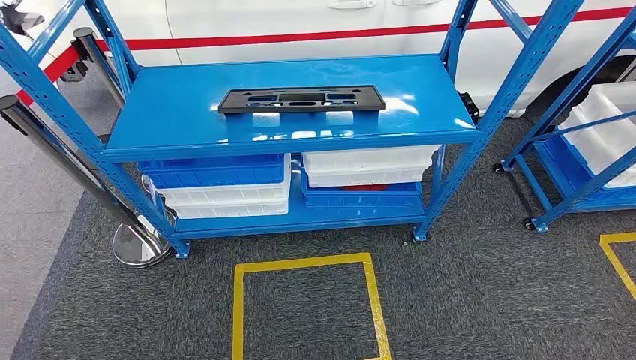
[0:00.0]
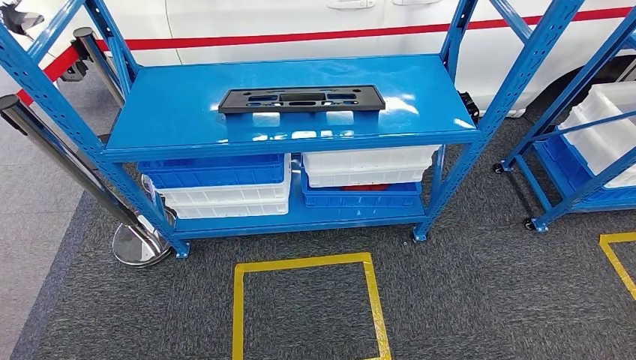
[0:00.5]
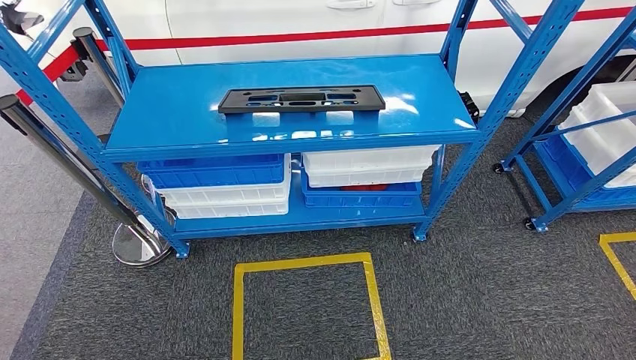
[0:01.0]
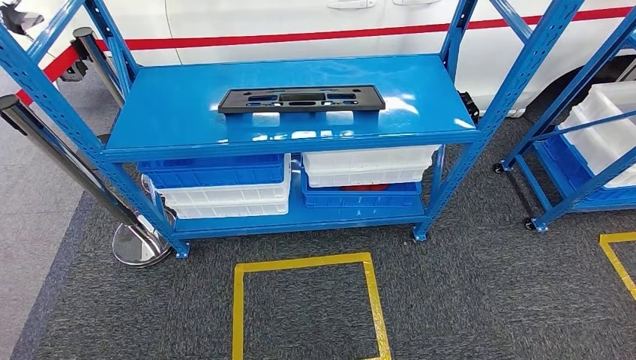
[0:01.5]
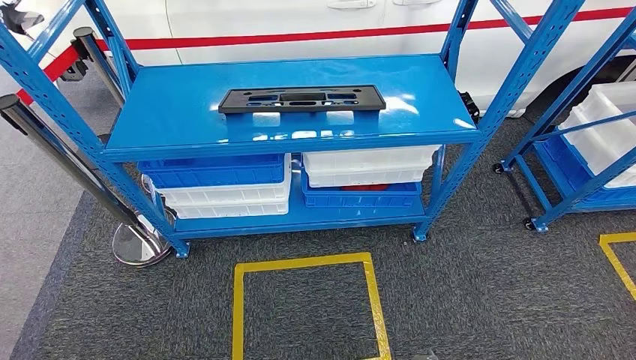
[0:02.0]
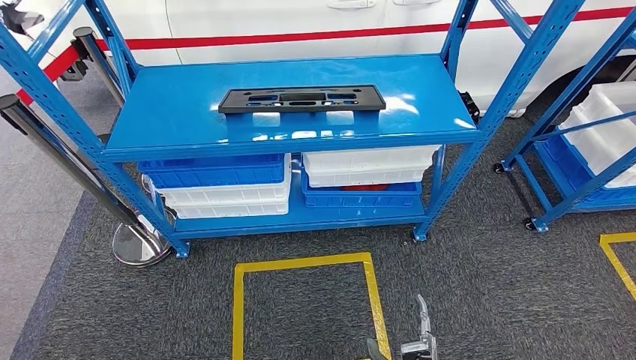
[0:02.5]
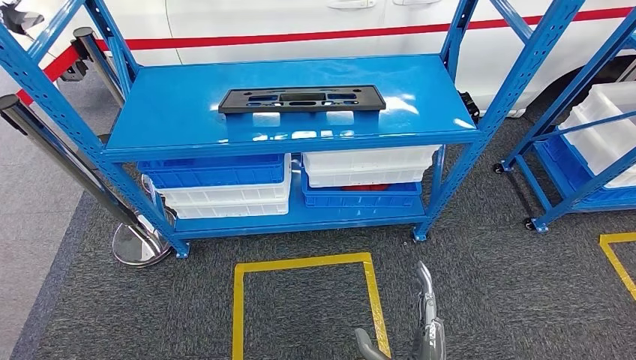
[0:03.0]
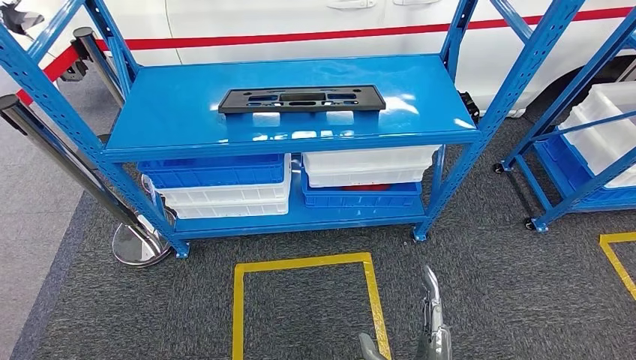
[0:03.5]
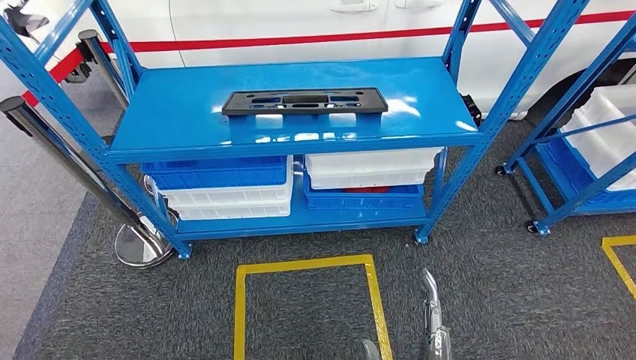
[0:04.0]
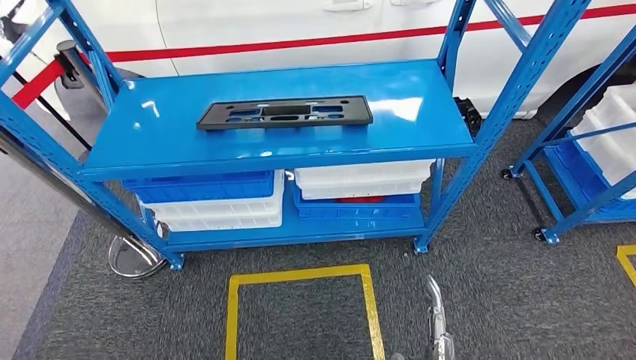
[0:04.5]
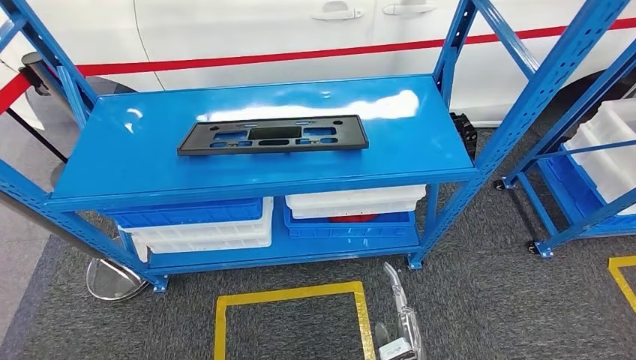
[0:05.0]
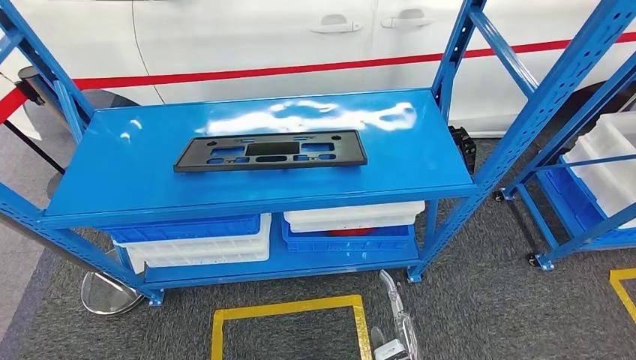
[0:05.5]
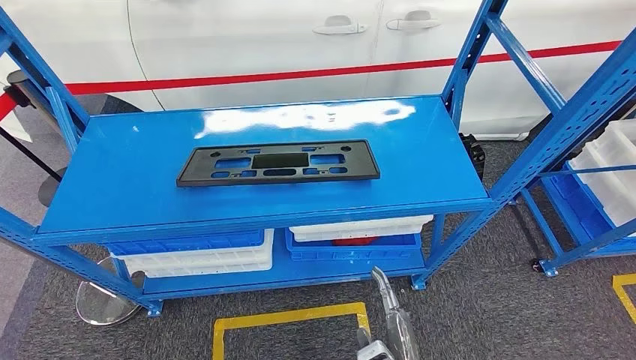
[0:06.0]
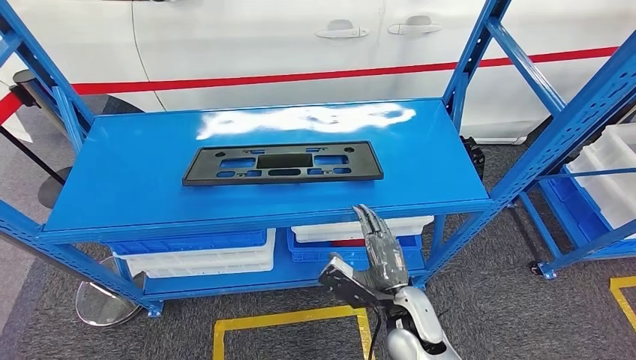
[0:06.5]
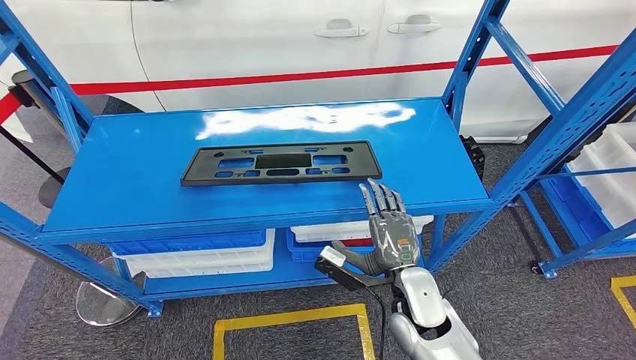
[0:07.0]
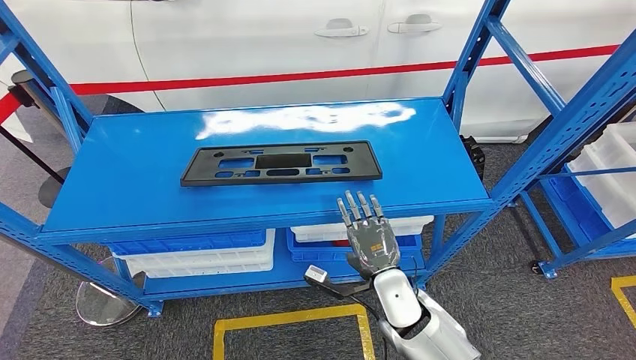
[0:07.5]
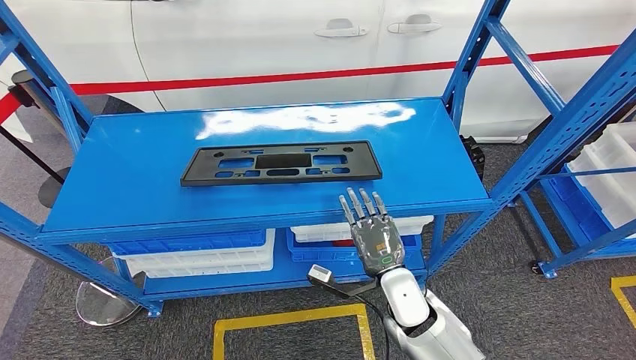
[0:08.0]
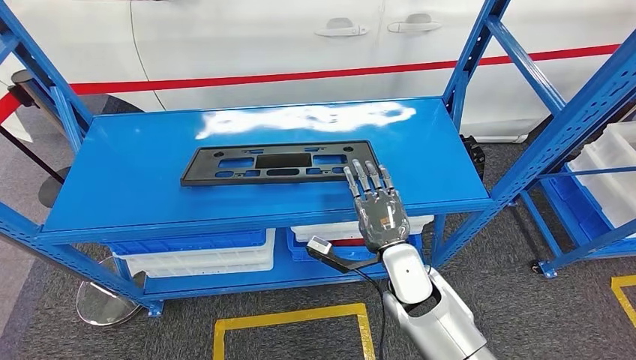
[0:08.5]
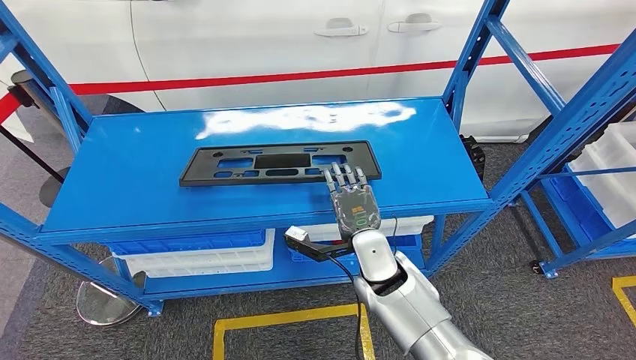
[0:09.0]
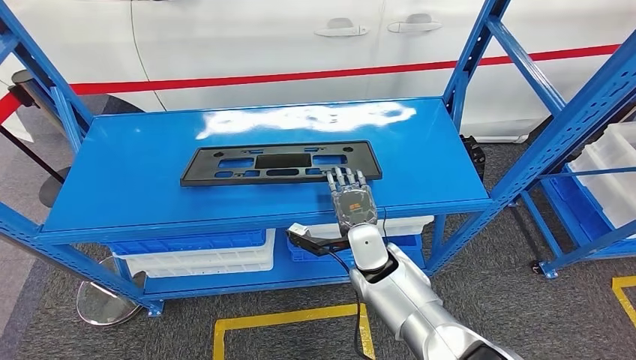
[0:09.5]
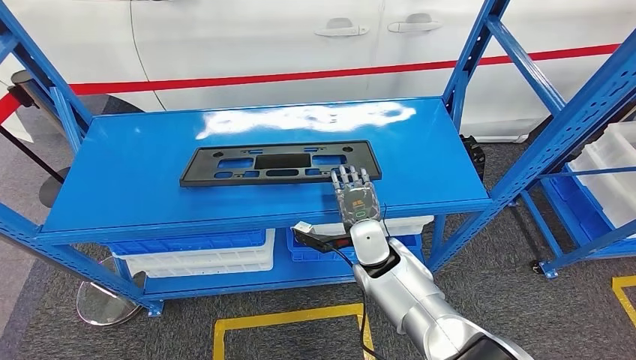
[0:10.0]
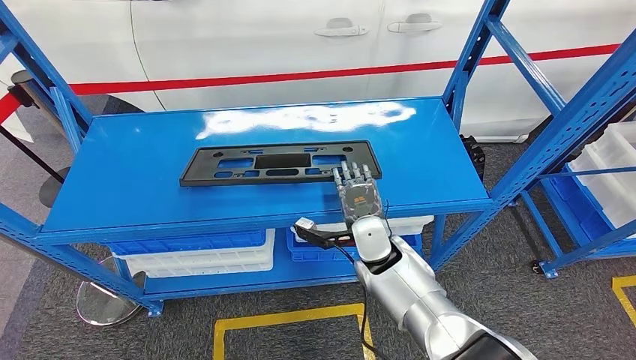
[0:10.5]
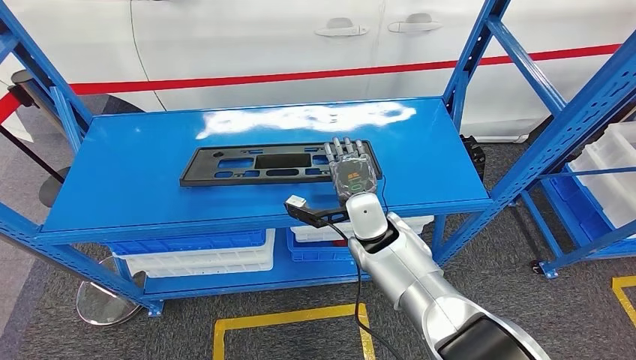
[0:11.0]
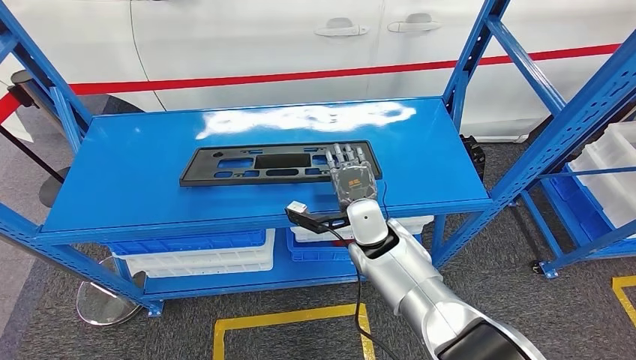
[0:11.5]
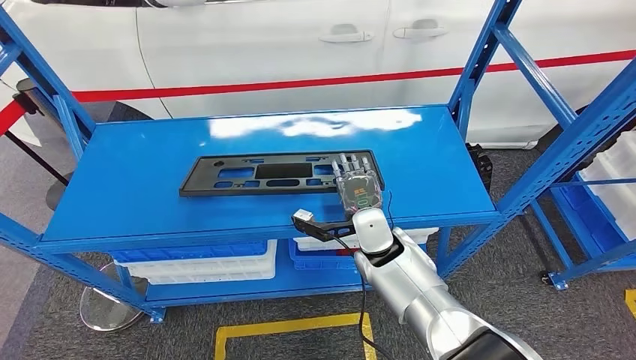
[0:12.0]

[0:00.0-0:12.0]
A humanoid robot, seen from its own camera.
0:02.0 to 0:04.0: The right hand shifts about 20 cm upward.
0:06.0 to 0:08.0: The right hand moves forward, roughly 15 cm.
0:08.0 to 0:10.0: The left hand travels to the right by approximately 15 cm. Meanwhile the right hand goes approximately 10 cm forward and to the left.

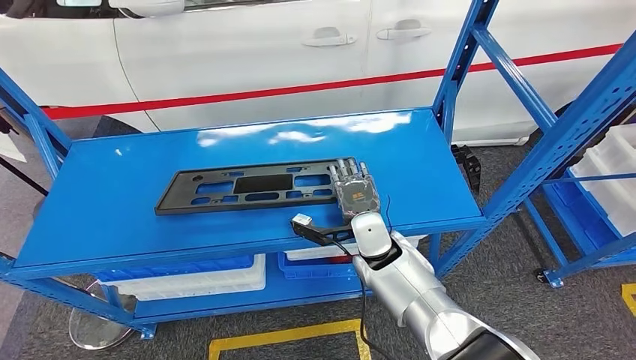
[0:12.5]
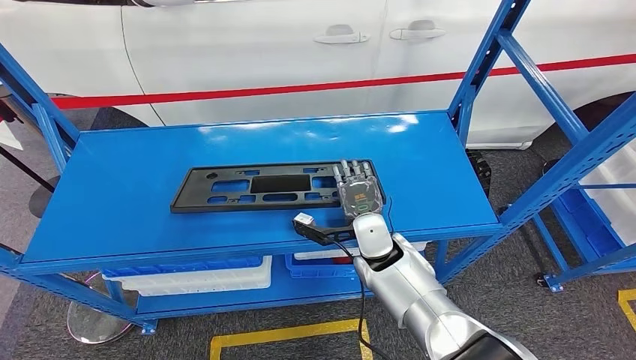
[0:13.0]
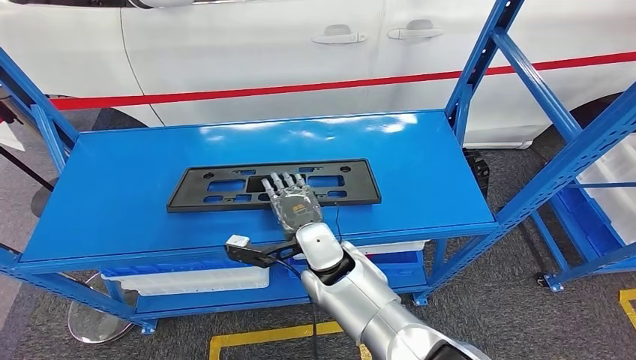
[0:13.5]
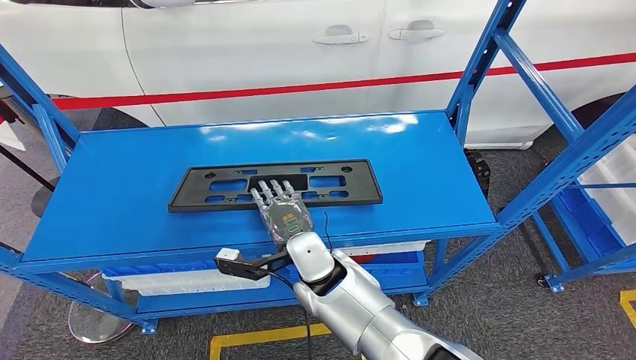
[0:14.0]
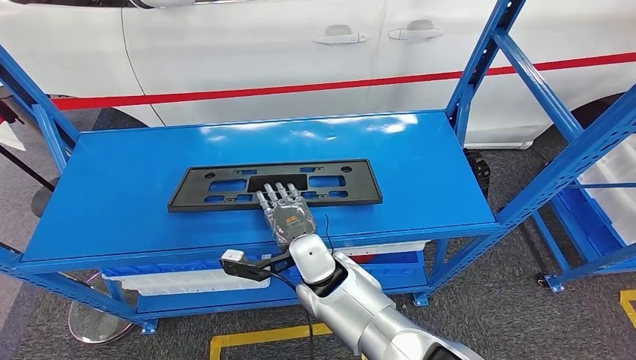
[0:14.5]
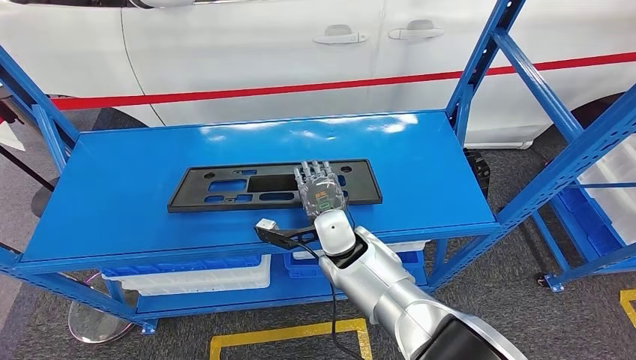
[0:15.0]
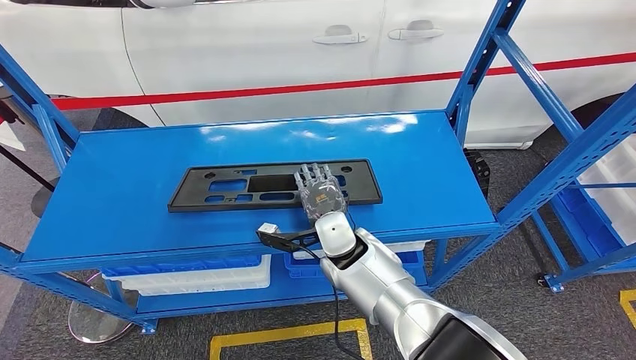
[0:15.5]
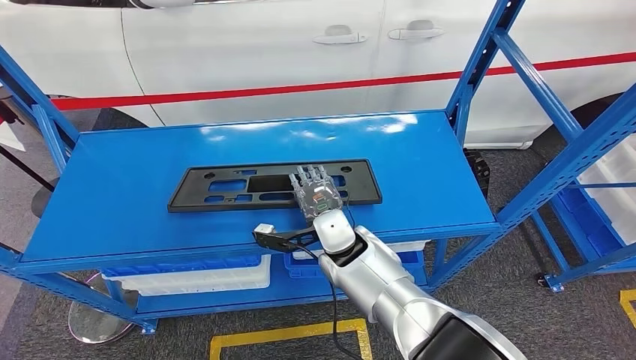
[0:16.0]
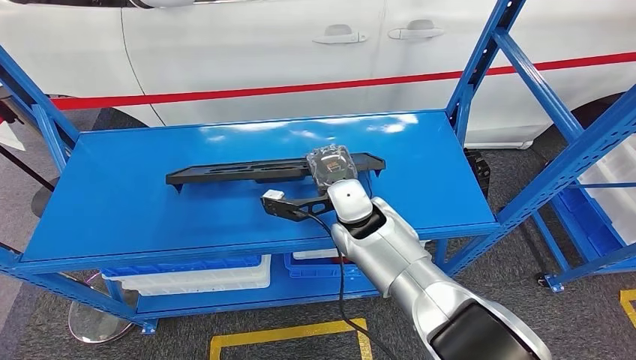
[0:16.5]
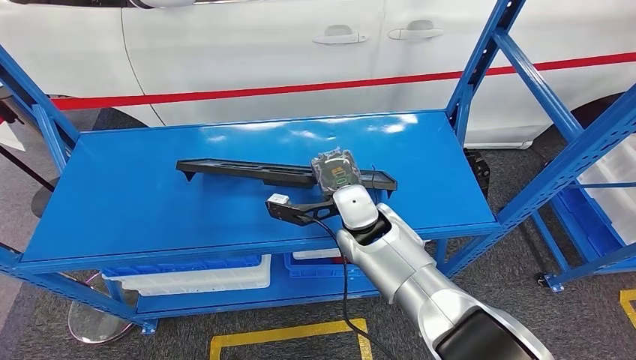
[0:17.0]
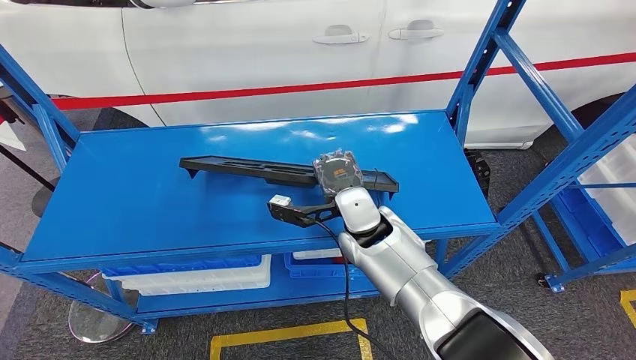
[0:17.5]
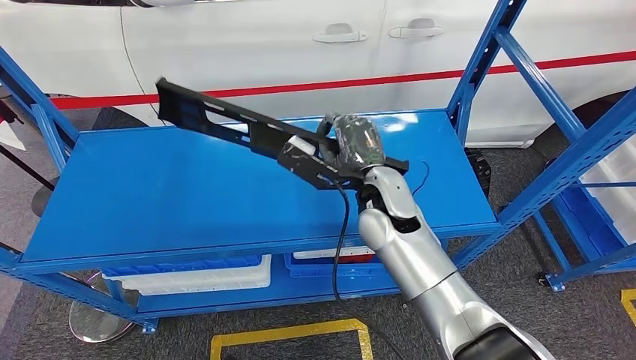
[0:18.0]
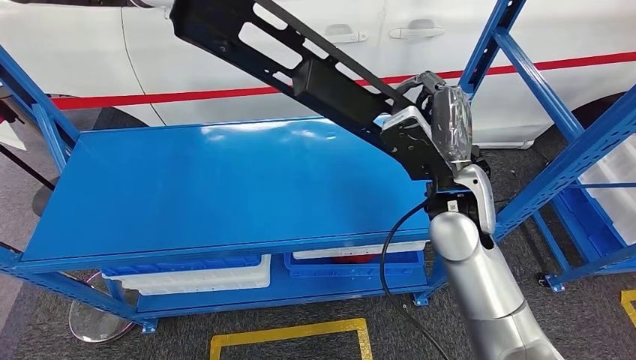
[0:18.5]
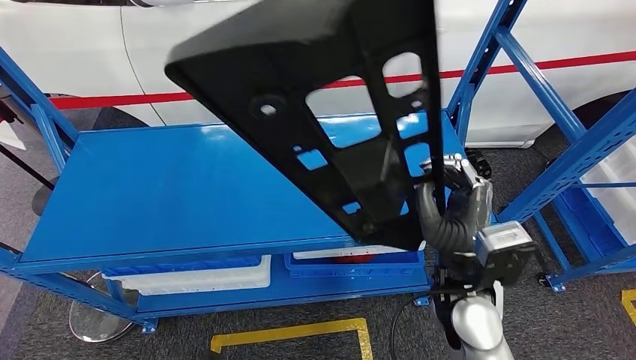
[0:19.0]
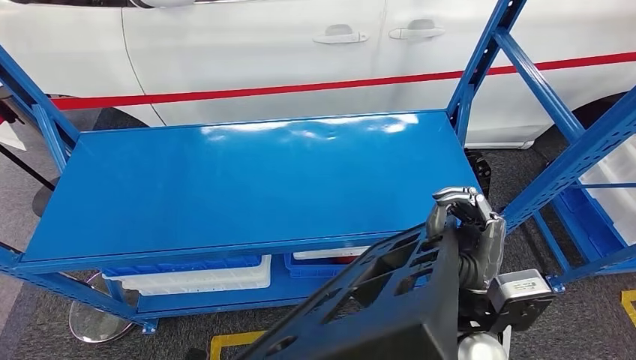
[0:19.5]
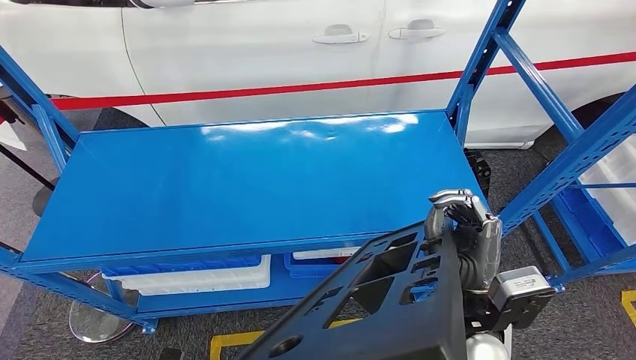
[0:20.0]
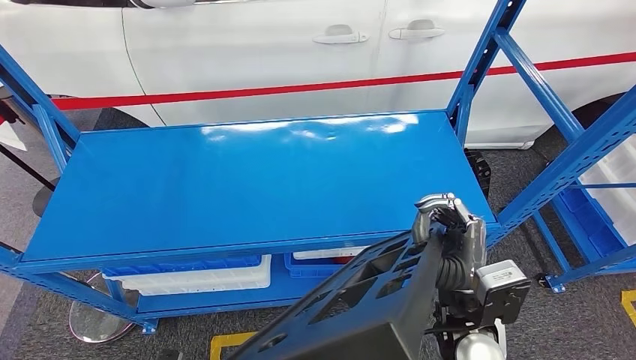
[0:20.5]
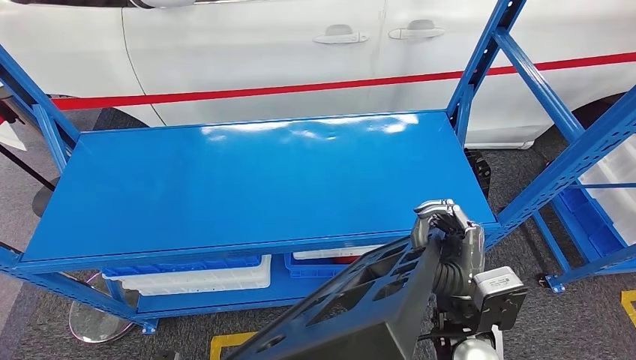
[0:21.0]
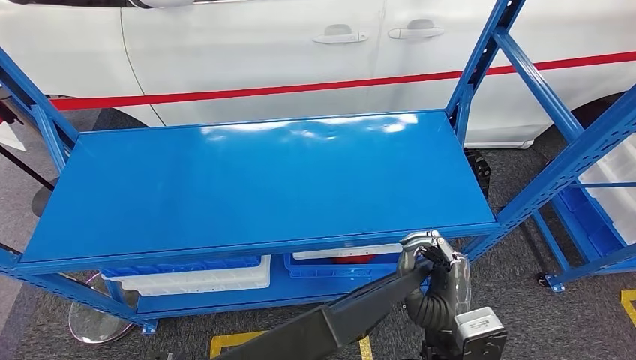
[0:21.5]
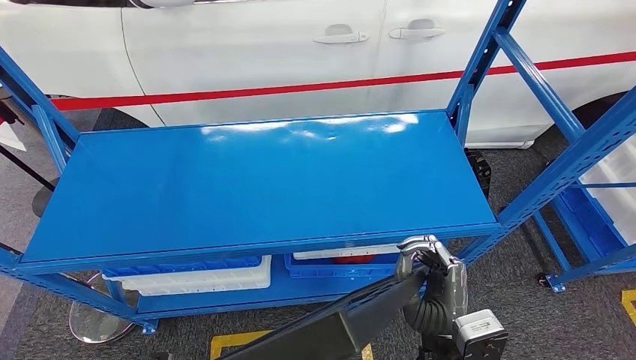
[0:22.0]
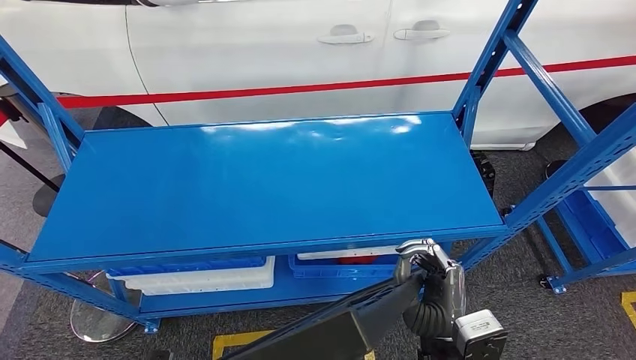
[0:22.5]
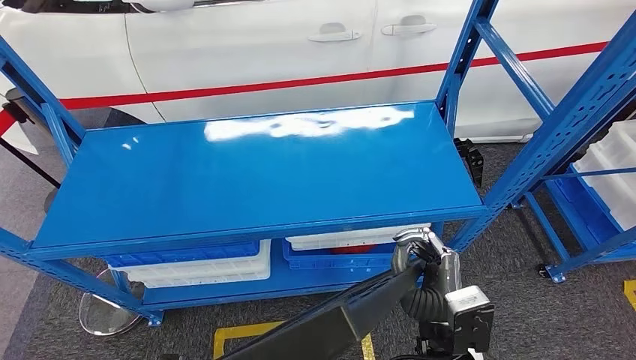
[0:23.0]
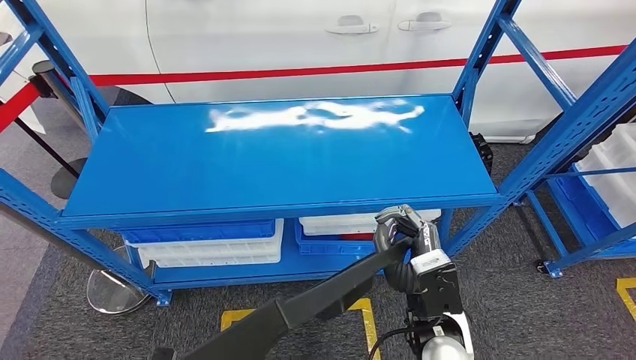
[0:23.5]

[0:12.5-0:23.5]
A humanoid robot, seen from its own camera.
Step, 0:12.5 to 0:19.0: Pick up the large material from the shelf.
0:14.5 to 0:16.0: The right hand ends up roughly 5 cm from where it was.
0:16.0 to 0:18.0: The right hand travels upward and to the right by roughly 10 cm.
0:18.0 to 0:20.0: The right hand moves backward and to the right, approximately 20 cm.
0:20.0 to 0:21.5: The right hand ends up some 5 cm from where it was.
